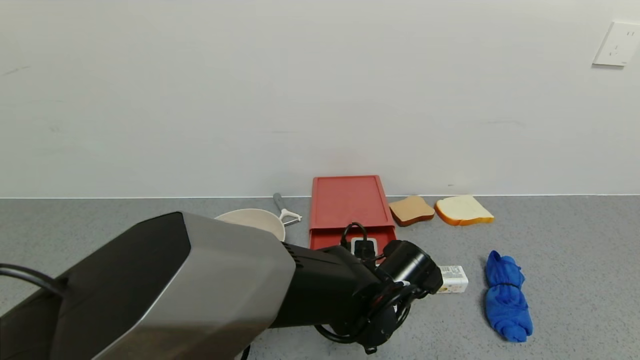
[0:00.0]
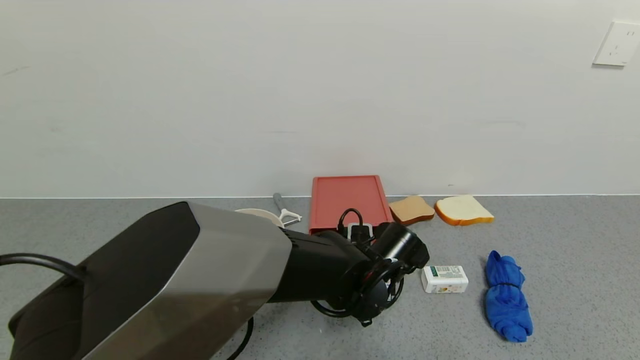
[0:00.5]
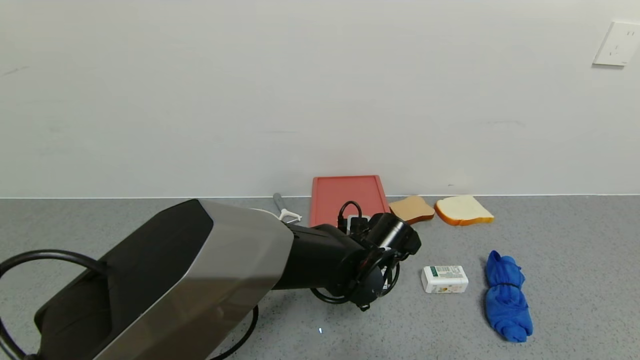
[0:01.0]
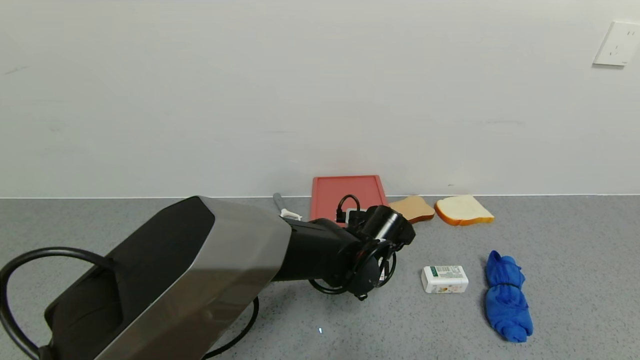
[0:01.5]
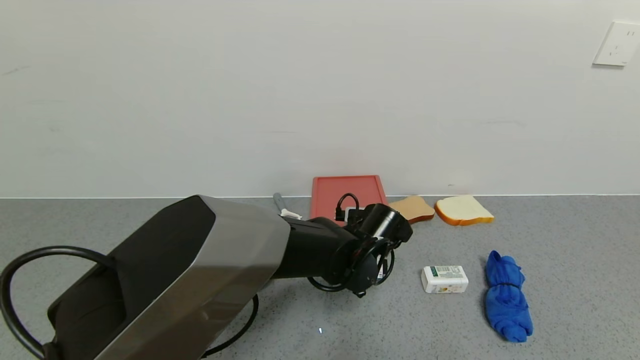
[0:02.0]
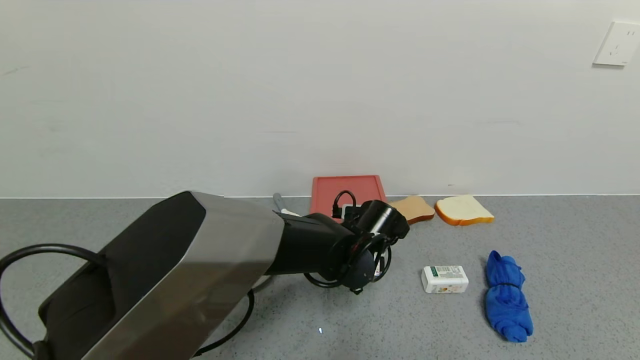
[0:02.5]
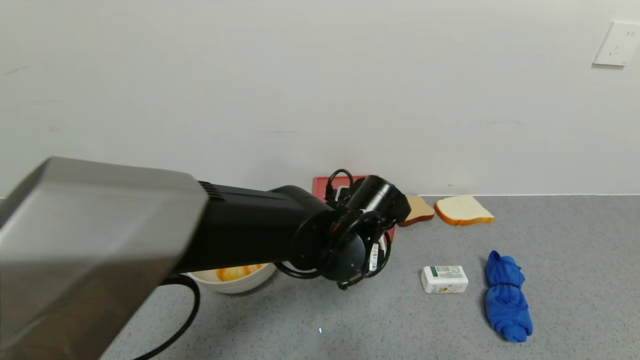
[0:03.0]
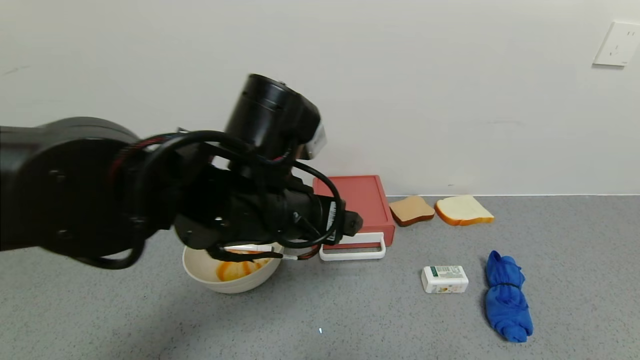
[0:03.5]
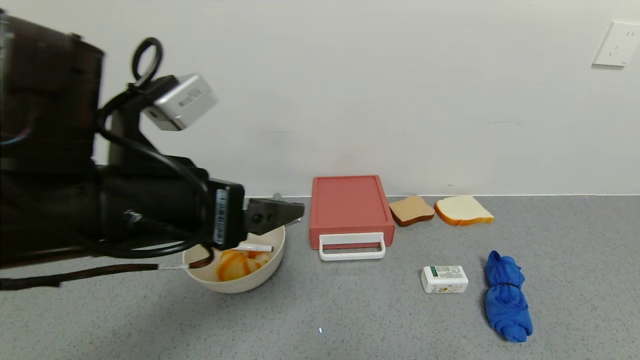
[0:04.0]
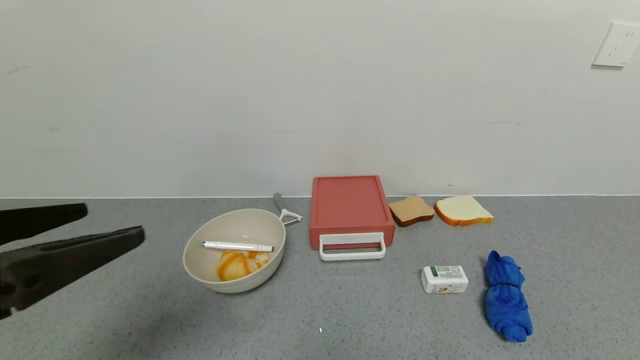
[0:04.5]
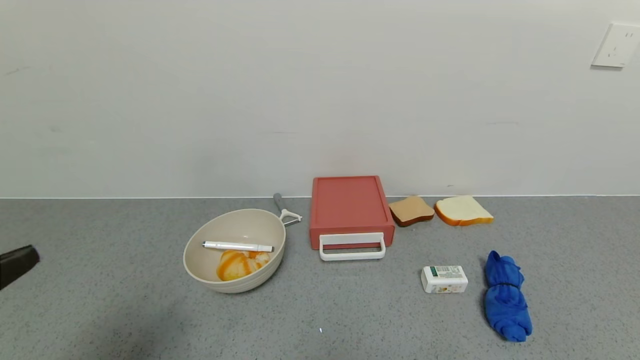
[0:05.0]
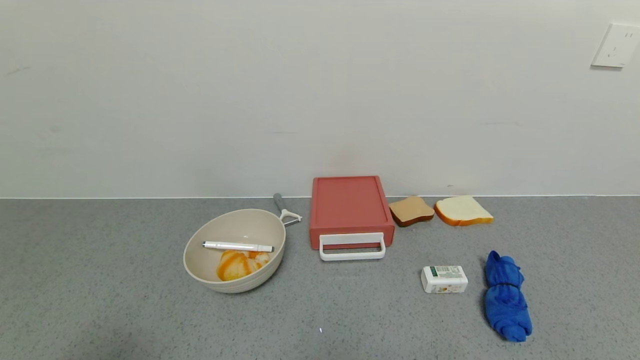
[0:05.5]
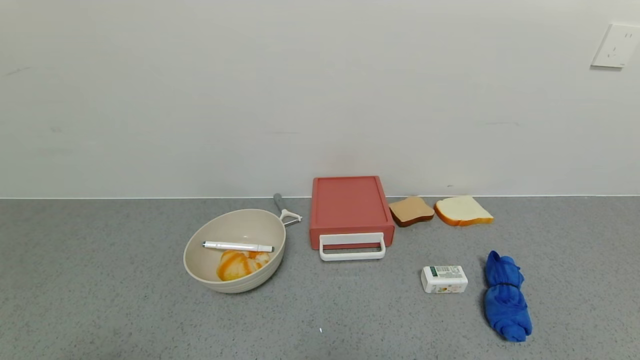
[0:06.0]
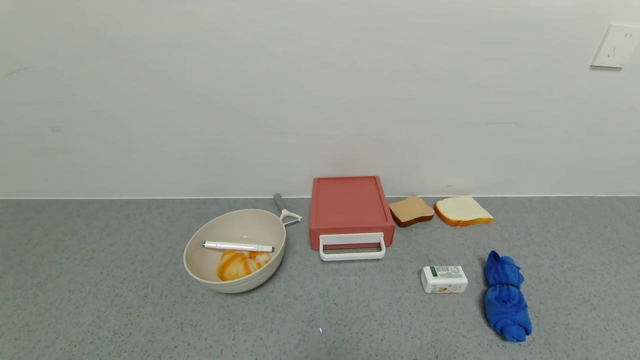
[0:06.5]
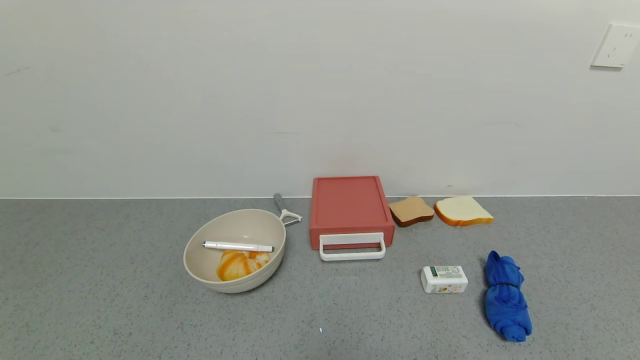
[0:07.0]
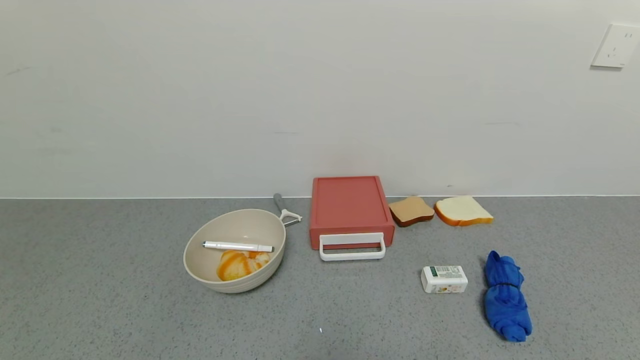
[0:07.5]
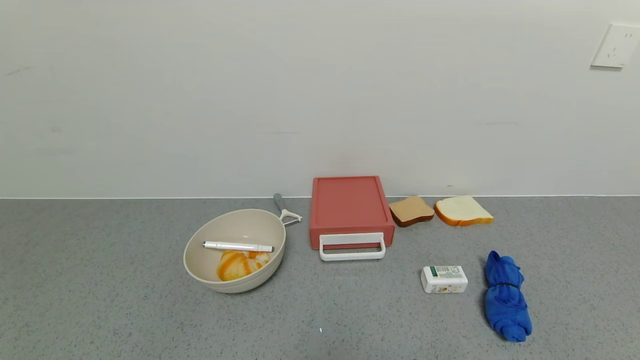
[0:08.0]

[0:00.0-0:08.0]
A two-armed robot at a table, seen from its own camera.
Task of the whole recording: use the gripper to open the drawer and close the red drawer.
Step, 0:00.0 to 0:03.0: Close the red drawer with left gripper.
0:00.0 to 0:02.0: The left gripper goes some 5 cm forward.
0:02.0 to 0:04.0: The left gripper heads upward, to the left and backward, covering about 30 cm.
0:04.0 to 0:06.0: The left gripper travels backward and to the left by some 25 cm.
